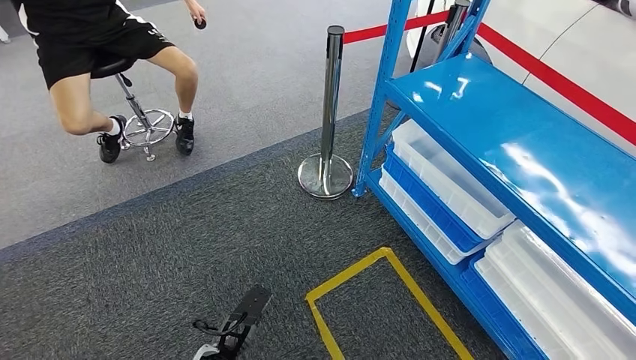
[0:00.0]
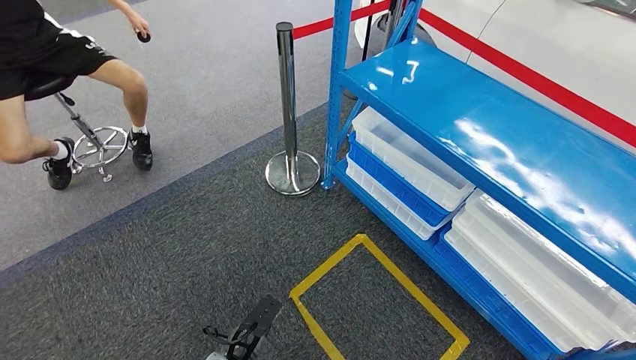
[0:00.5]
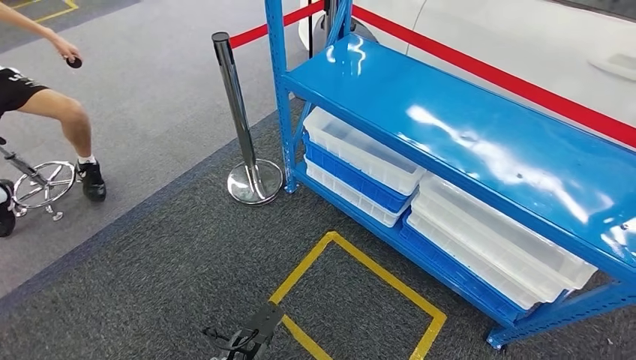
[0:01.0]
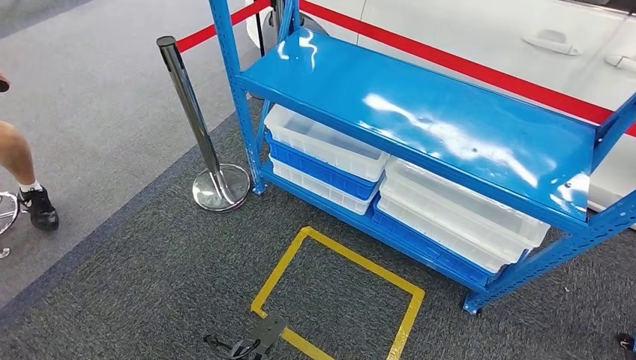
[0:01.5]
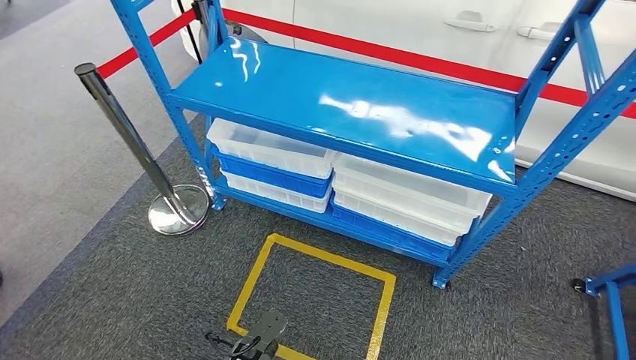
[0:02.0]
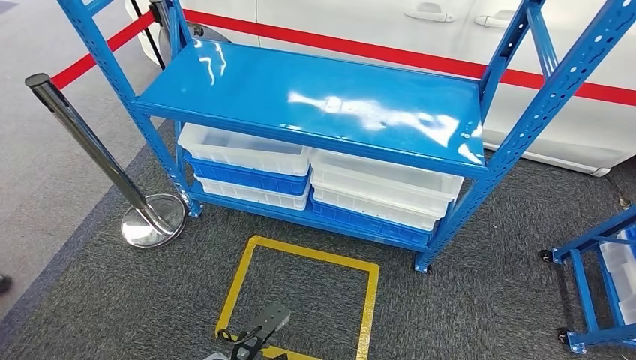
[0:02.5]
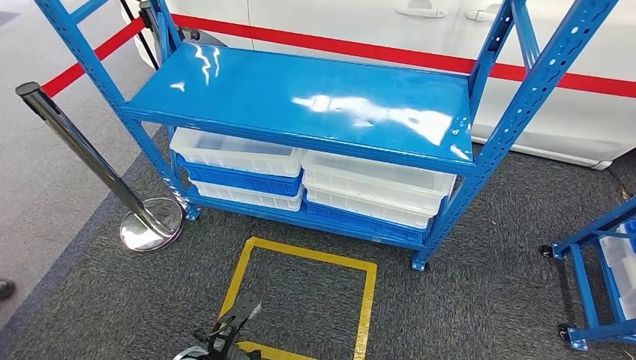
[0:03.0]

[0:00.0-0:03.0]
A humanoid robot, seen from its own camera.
Step, 0:00.0 to 0:03.0: Return to the initial position at the shelf.
